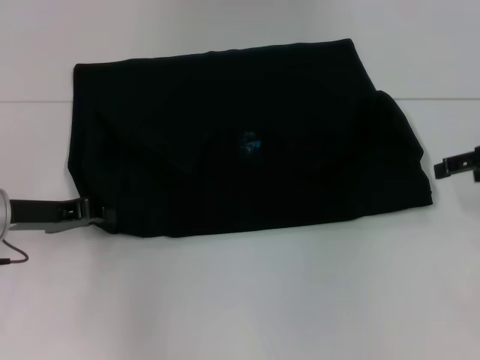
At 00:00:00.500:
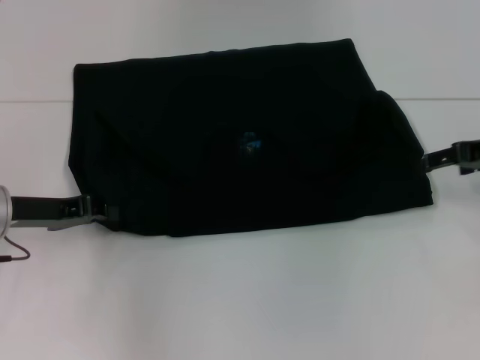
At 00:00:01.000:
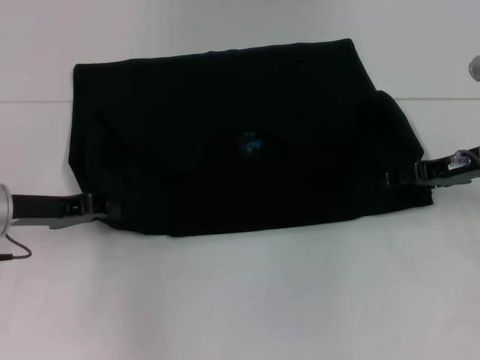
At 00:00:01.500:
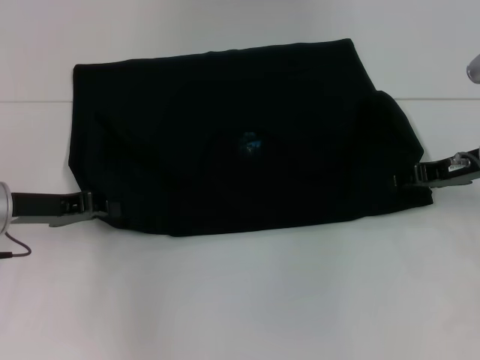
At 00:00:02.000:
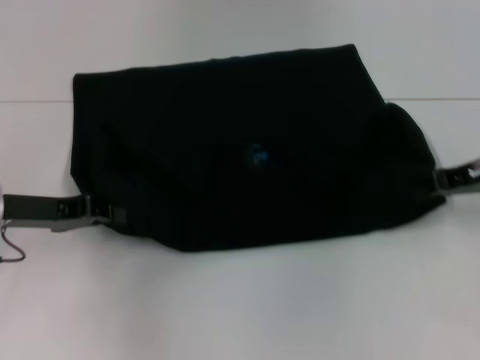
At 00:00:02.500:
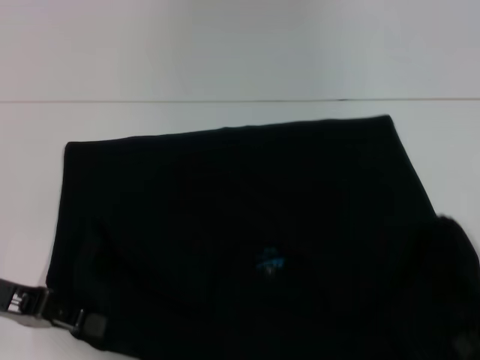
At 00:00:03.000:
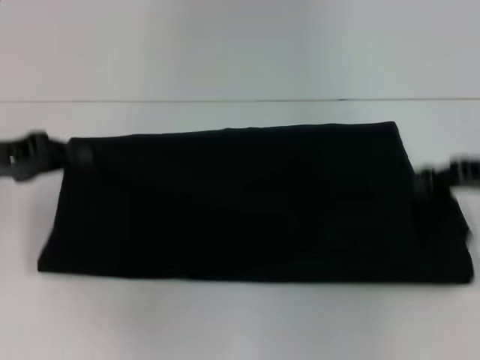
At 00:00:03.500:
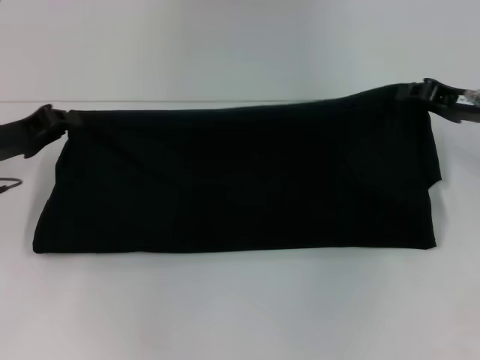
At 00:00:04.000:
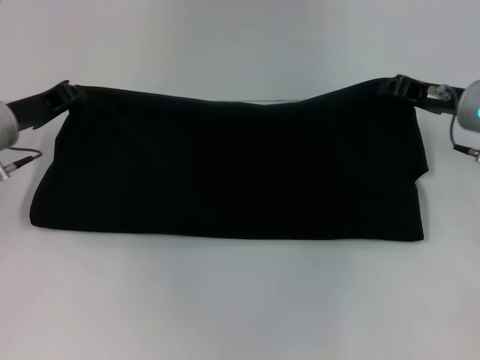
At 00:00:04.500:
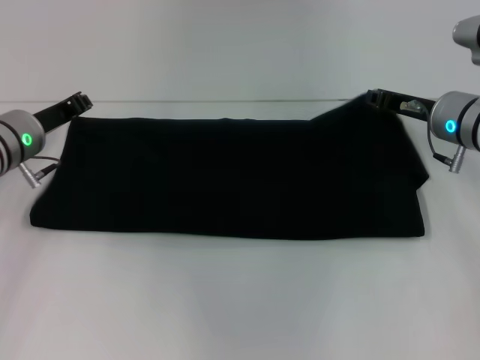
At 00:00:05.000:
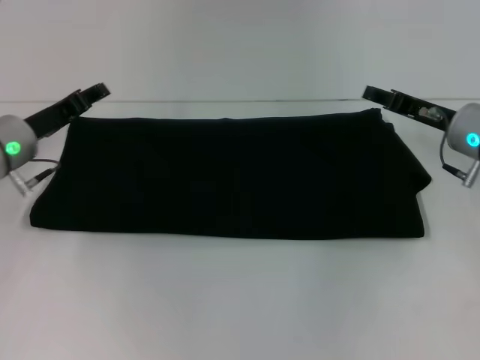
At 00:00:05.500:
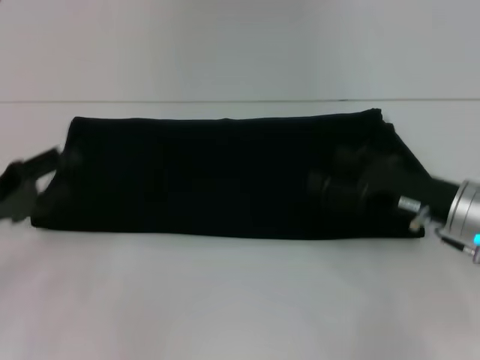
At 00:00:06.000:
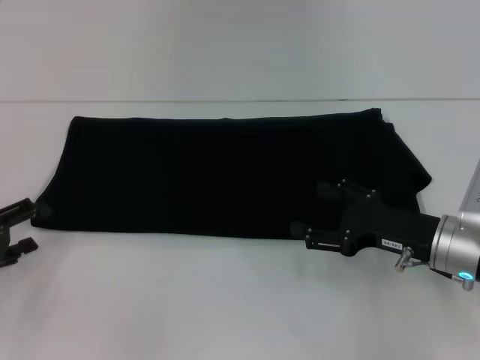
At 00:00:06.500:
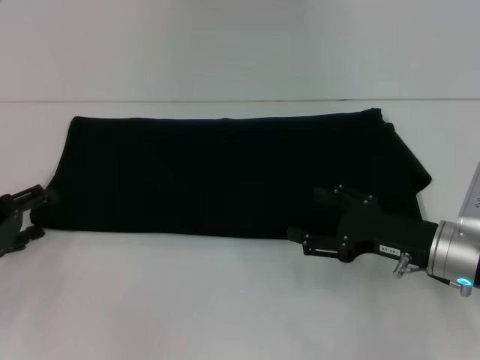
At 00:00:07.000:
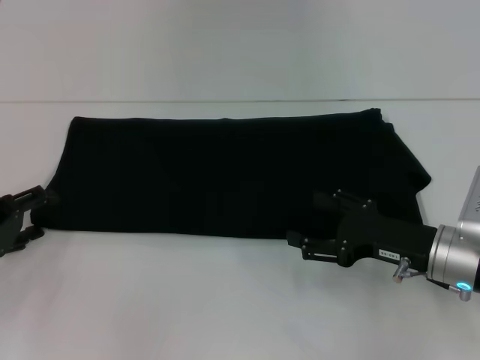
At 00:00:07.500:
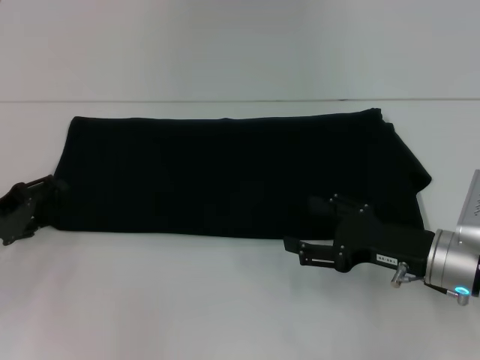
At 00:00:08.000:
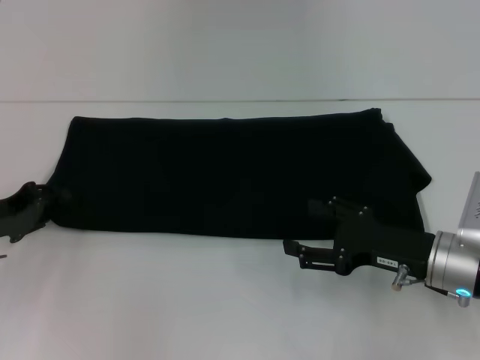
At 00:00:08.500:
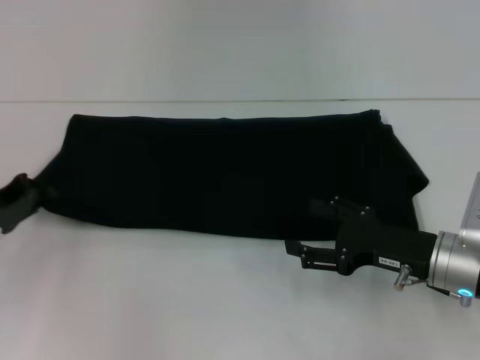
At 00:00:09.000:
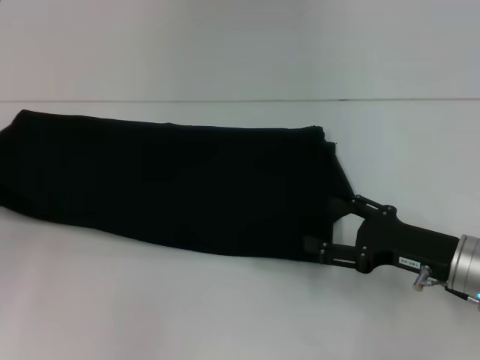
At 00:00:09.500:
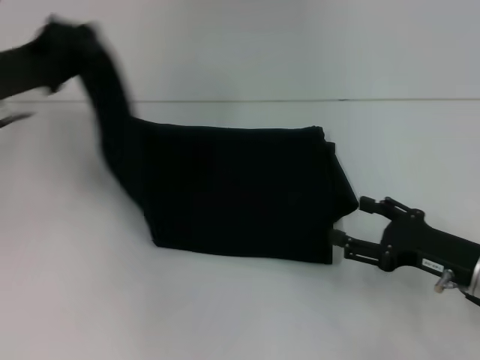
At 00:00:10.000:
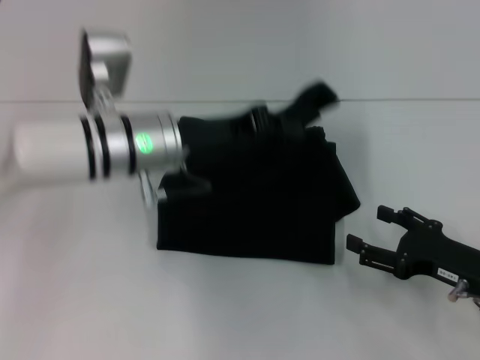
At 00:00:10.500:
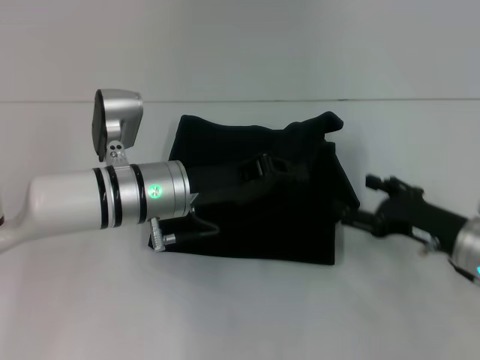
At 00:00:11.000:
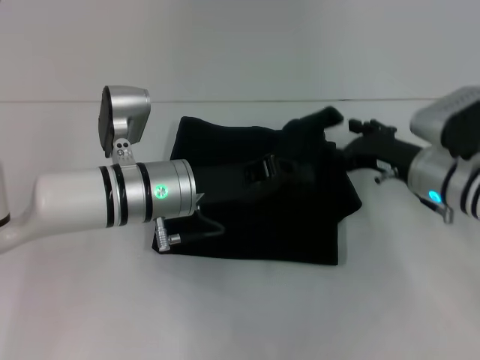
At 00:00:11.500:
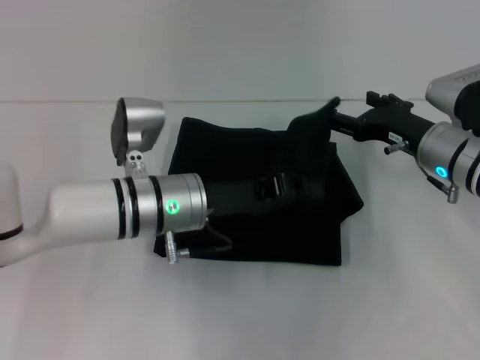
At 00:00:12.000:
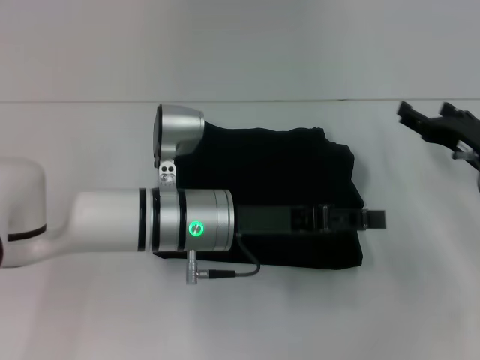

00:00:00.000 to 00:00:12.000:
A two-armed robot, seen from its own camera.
Step, 00:00:00.000 to 00:00:02.500: Pull the clothes with your left hand.
Step, 00:00:00.000 to 00:00:02.500: Pull the clothes with your right hand.
Step, 00:00:03.000 to 00:00:04.500: Fold the clothes with your right hand.
Step, 00:00:03.000 to 00:00:11.500: Fold the clothes with your left hand.
00:00:00.000 to 00:00:02.000: The right gripper shifts by some 5 cm, and closes.
00:00:02.000 to 00:00:04.000: The right gripper goes backward and returns, about 10 cm each way; the left gripper moves forward, roughly 5 cm.
00:00:04.000 to 00:00:06.000: The right gripper goes roughly 15 cm backward and downward, and opens up. Meanwhile the left gripper goes about 15 cm backward and to the left, and opens its fingers.
00:00:06.000 to 00:00:08.000: The left gripper is displaced forward by about 5 cm.
00:00:08.000 to 00:00:10.000: The left gripper shifts some 20 cm to the right, and closes up. The right gripper shifts roughly 5 cm to the right.
00:00:10.000 to 00:00:12.000: The right gripper goes some 10 cm forward; the left gripper changes place by some 10 cm.

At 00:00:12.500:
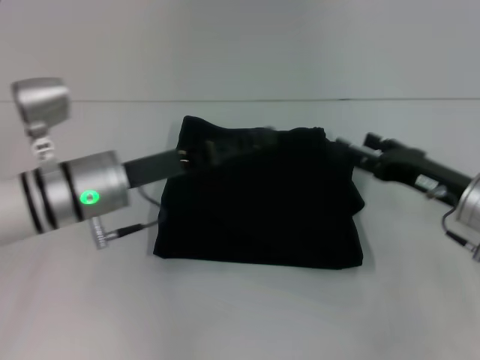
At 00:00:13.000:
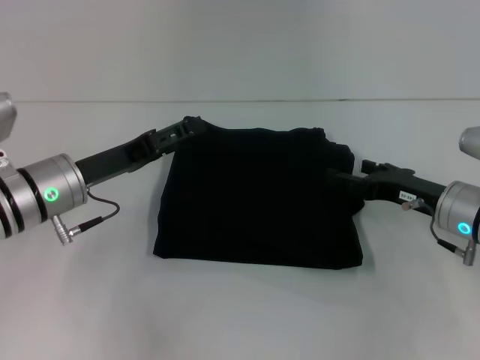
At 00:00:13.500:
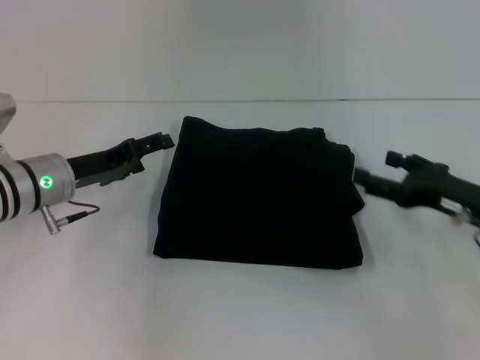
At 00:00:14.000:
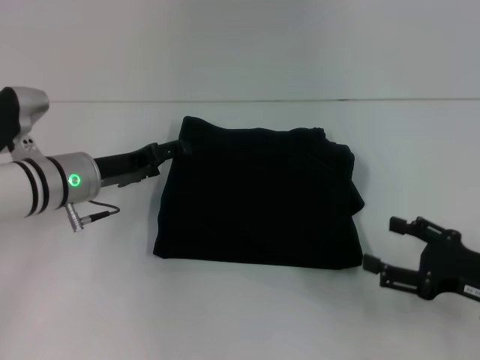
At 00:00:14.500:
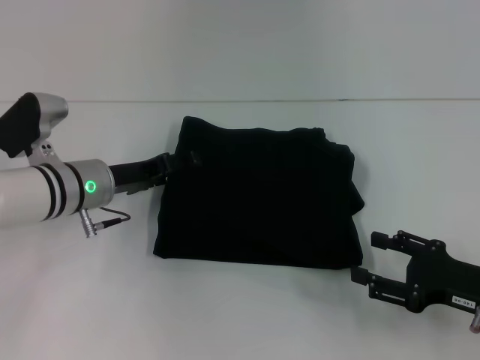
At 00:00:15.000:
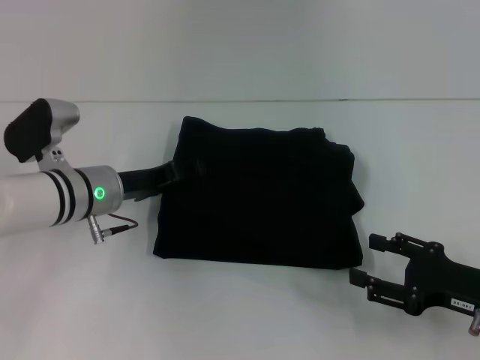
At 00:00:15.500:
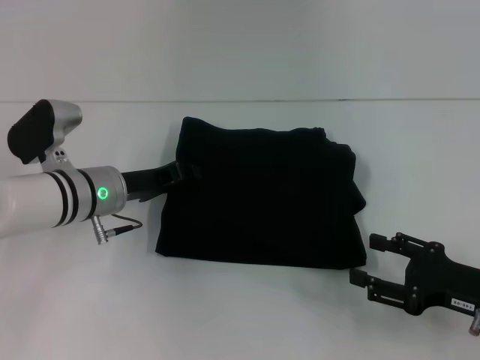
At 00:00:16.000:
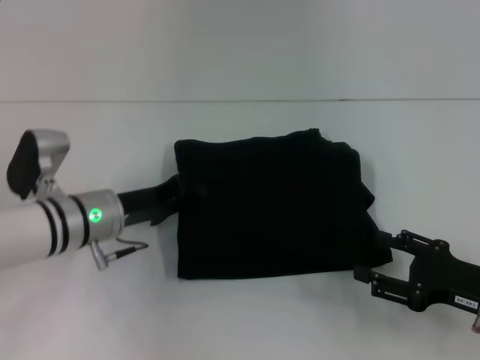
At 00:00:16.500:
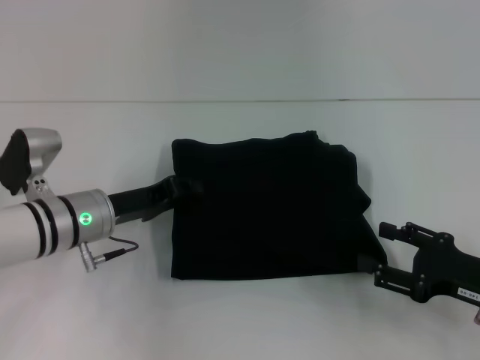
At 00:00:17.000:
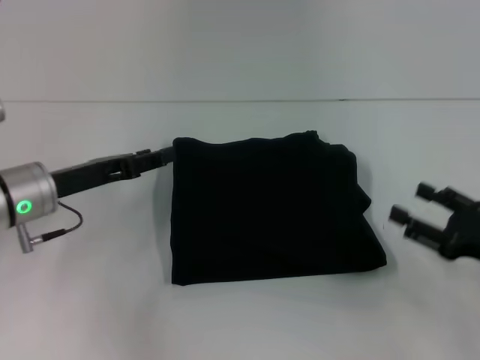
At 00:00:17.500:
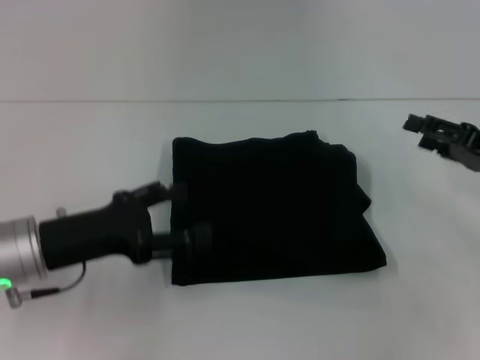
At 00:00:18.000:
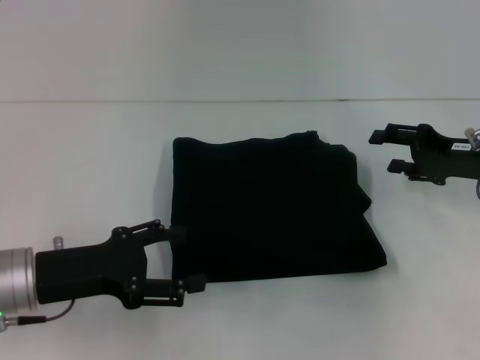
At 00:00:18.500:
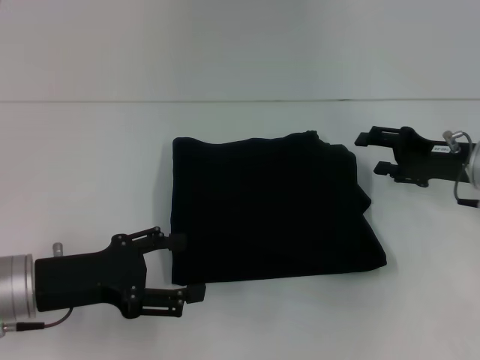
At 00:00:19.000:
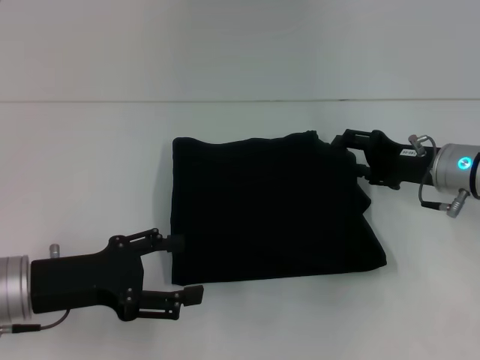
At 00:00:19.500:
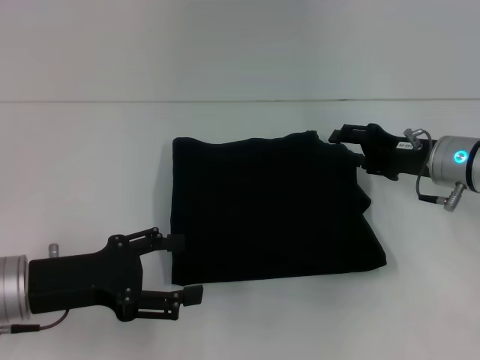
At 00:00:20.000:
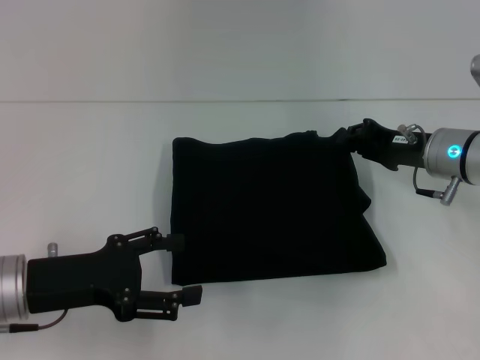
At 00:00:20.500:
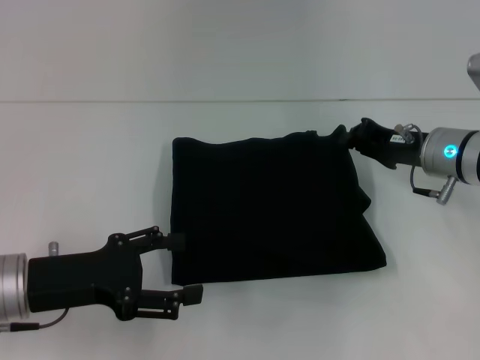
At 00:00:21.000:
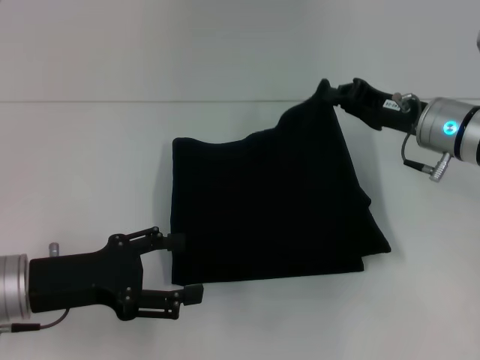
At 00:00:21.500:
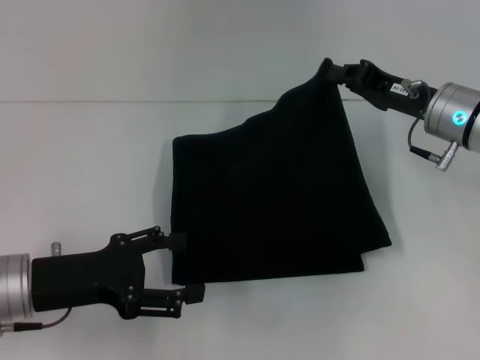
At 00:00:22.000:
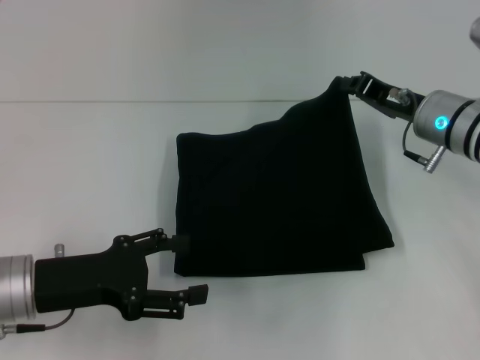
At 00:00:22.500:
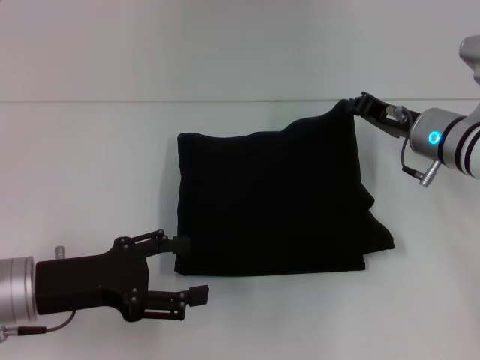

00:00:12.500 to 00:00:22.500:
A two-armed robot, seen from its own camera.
00:00:12.500 to 00:00:14.500: The left gripper shifts by approximately 5 cm; the right gripper shifts about 10 cm backward.
00:00:14.500 to 00:00:16.500: The left gripper closes.
00:00:16.500 to 00:00:18.500: The right gripper heads forward, covering roughly 15 cm. The left gripper is displaced backward by approximately 10 cm, and opens its fingers.
00:00:18.500 to 00:00:20.500: The right gripper moves some 5 cm, and closes its fingers.

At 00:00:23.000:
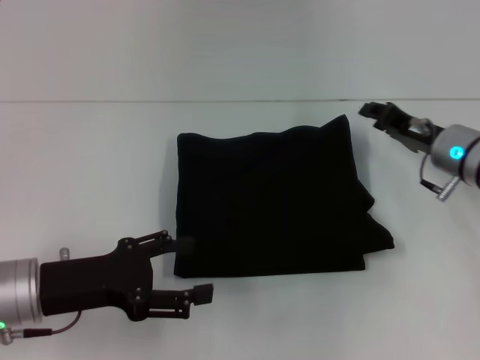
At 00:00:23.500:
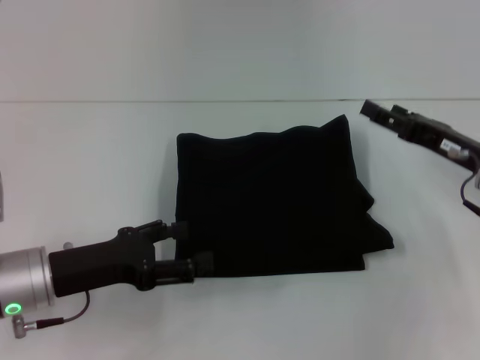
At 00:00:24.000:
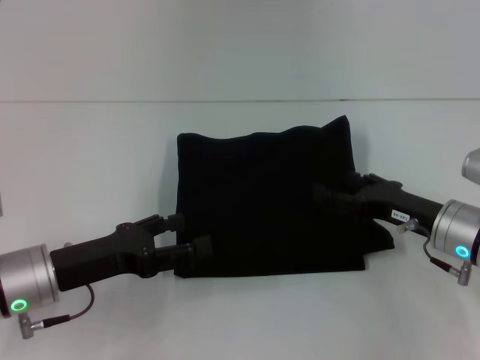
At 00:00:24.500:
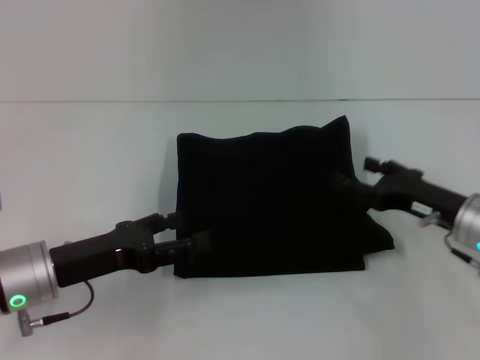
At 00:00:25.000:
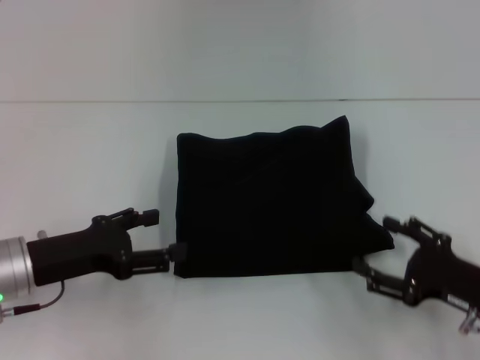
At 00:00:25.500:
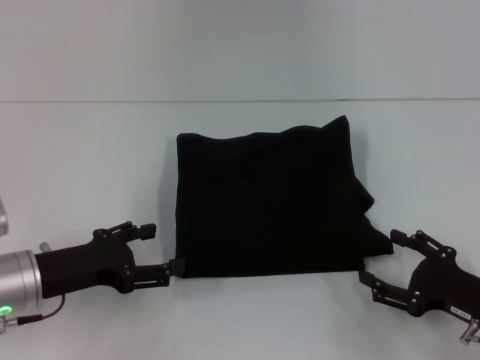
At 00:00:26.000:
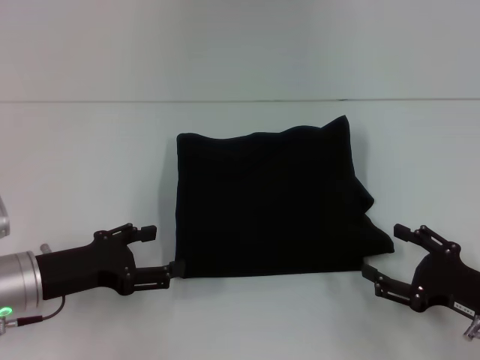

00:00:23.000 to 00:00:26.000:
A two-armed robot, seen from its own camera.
00:00:23.000 to 00:00:24.500: The right gripper goes about 10 cm backward, and opens up.
00:00:24.500 to 00:00:26.000: The right gripper heads backward, covering about 10 cm.
